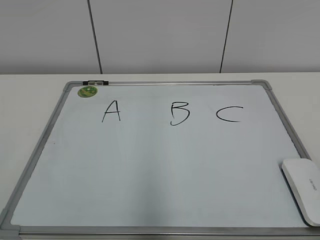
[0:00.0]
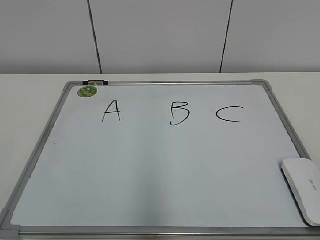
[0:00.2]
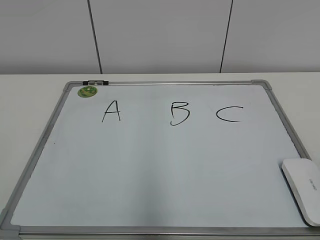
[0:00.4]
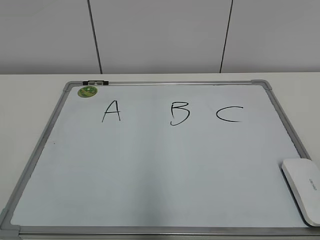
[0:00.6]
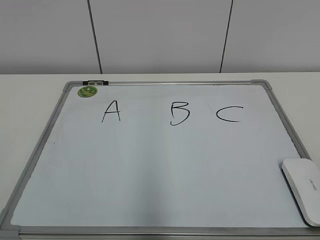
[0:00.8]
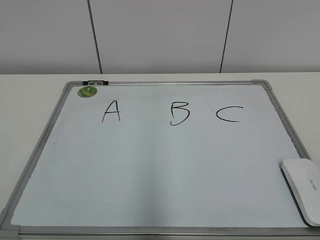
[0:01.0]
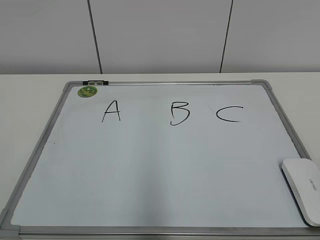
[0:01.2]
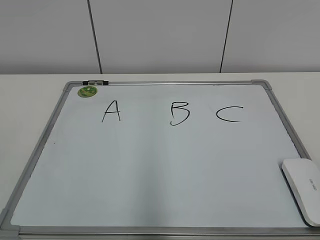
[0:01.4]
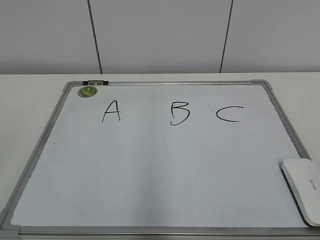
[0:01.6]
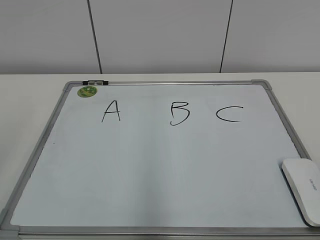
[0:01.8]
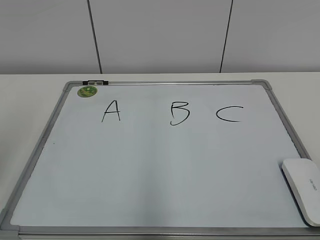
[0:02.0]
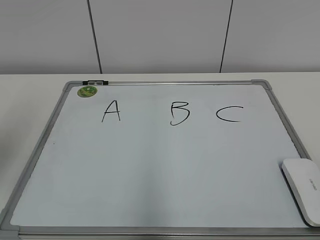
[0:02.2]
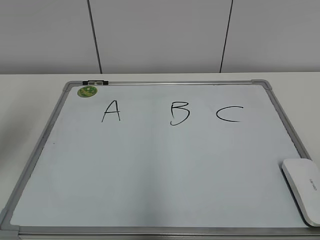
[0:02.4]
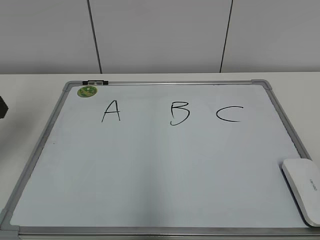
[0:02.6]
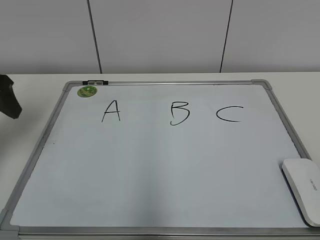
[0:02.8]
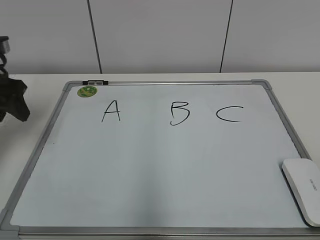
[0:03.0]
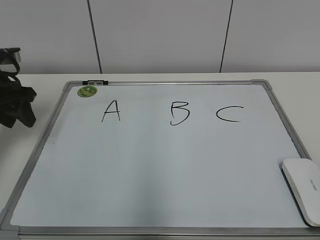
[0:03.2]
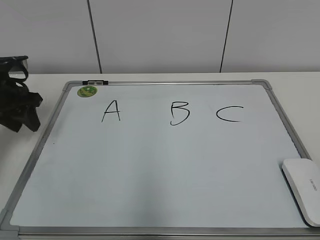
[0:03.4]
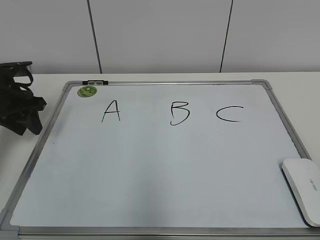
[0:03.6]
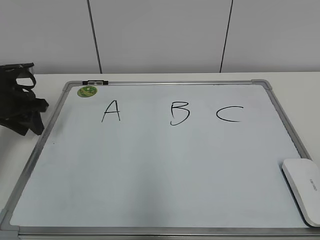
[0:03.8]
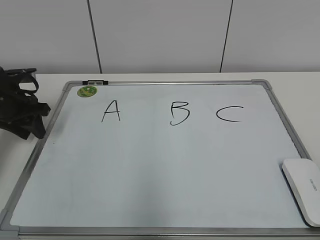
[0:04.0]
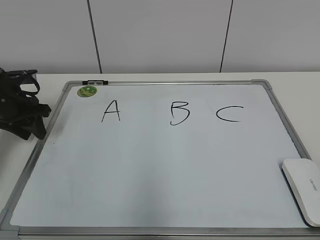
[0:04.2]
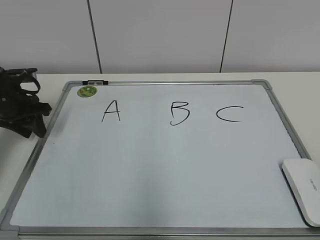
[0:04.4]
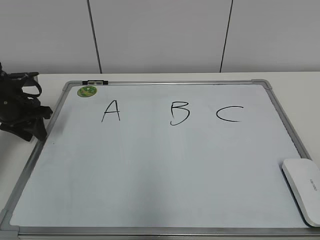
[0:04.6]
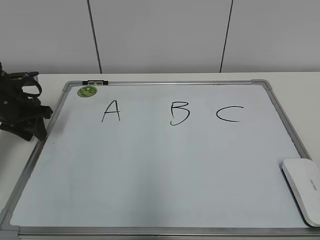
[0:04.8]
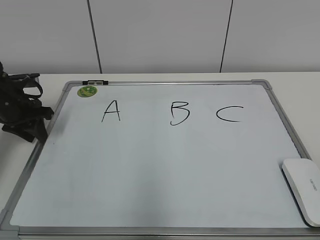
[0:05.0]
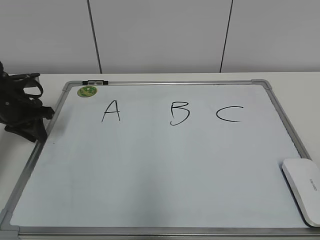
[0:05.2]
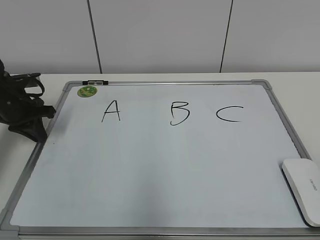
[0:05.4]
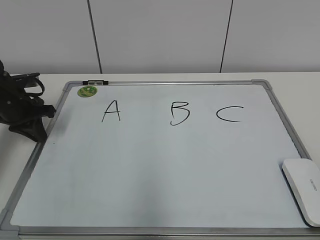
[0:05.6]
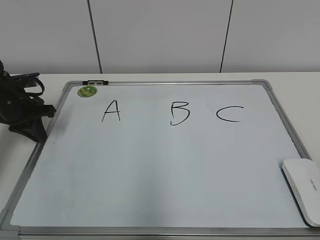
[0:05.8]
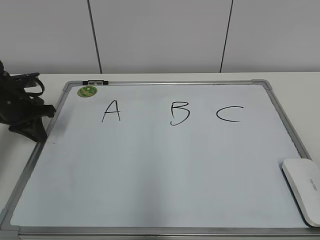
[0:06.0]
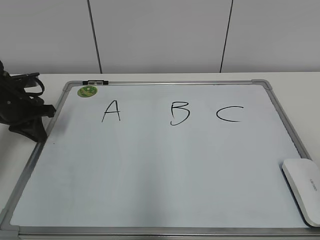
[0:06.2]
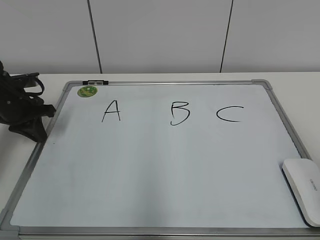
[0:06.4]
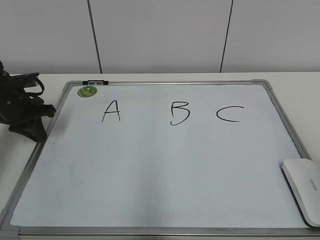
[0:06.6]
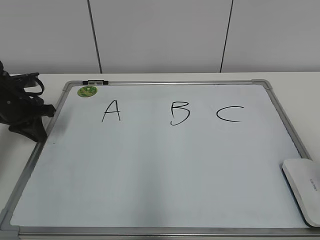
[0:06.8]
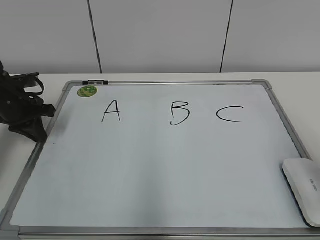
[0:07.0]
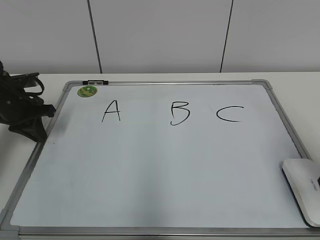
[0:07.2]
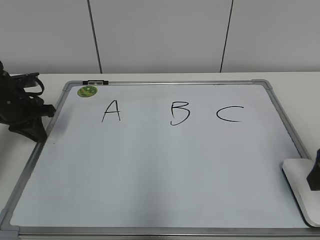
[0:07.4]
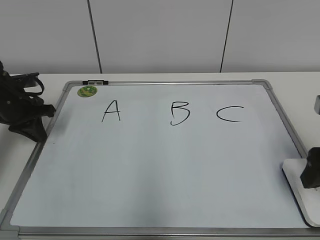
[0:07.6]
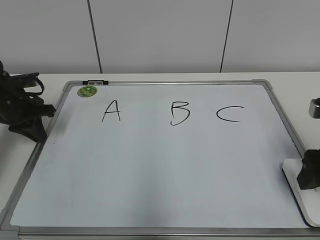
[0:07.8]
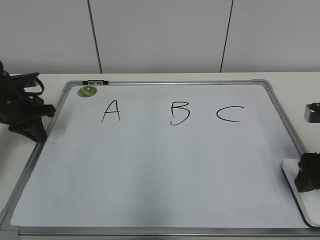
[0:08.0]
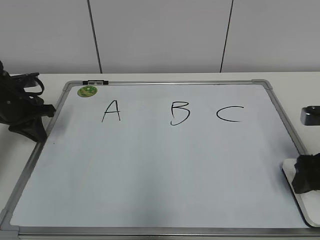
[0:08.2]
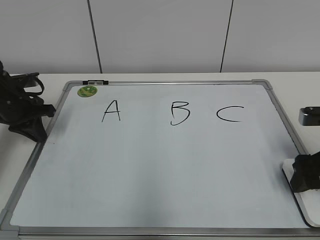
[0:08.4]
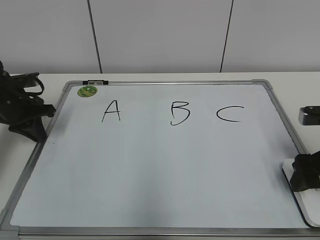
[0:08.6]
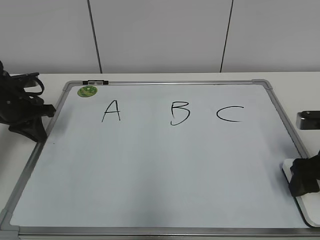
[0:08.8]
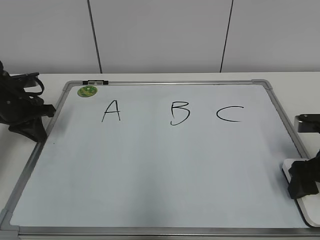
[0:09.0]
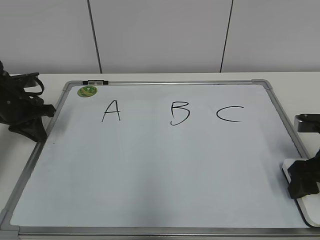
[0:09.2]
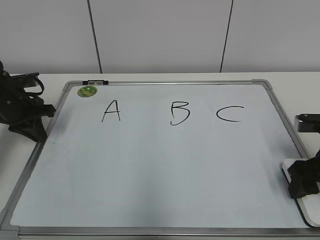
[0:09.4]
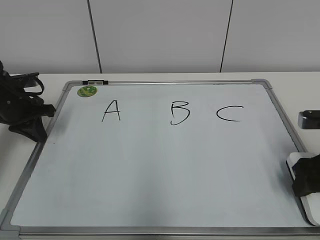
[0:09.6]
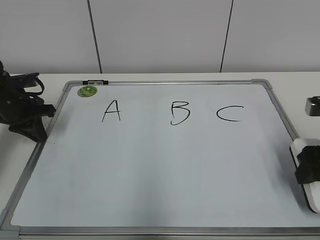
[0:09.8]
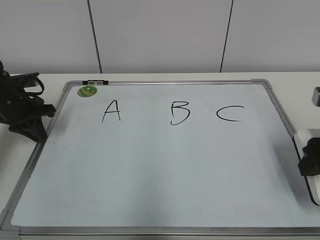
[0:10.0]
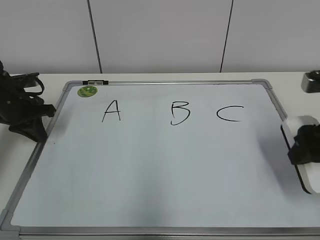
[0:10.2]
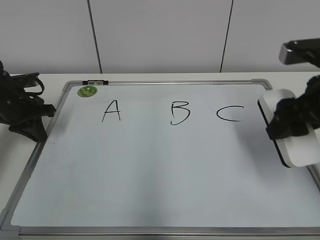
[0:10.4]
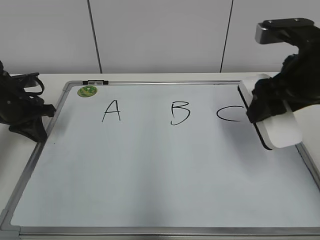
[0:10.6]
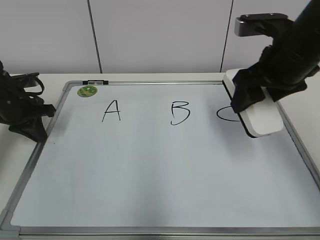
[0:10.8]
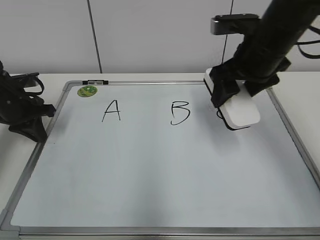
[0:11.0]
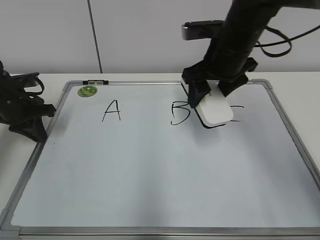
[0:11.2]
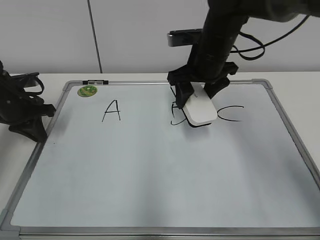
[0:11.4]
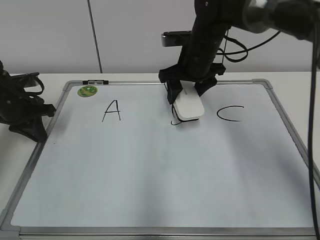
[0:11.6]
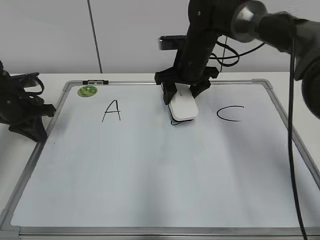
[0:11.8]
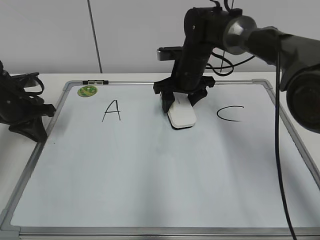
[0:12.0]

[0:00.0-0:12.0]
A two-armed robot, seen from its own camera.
Task of the whole recording: pick up the eraser on the blackboard and erase the letter "B".
Step, 0:00.0 to 0:05.2: Hold the drawing board steady with your left hand.
0:01.6 to 0:03.0: The left gripper heads forward, covering approximately 30 cm.
0:03.0 to 0:04.4: The left gripper travels downward and forward by approximately 10 cm.
0:04.4 to 0:06.0: The left gripper closes.
0:06.0 to 0:07.6: The right gripper moves forward and downward, about 25 cm, and opens its fingers.
0:07.6 to 0:09.0: The right gripper moves downward, roughly 5 cm.
0:09.0 to 0:10.4: The right gripper is displaced upward by about 10 cm, and closes.
0:10.4 to 0:12.0: The right gripper moves forward and to the left, about 25 cm.

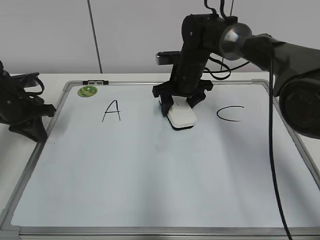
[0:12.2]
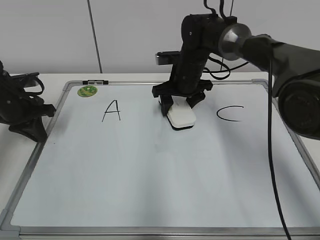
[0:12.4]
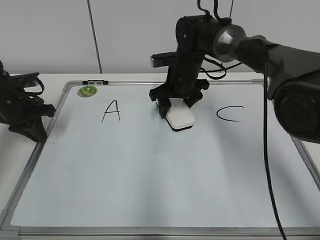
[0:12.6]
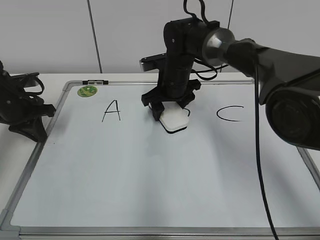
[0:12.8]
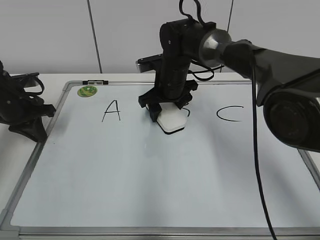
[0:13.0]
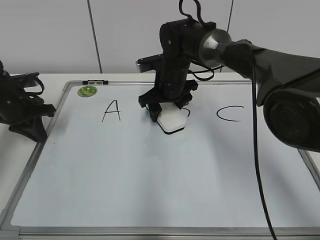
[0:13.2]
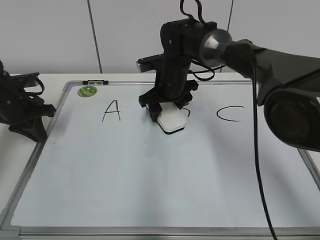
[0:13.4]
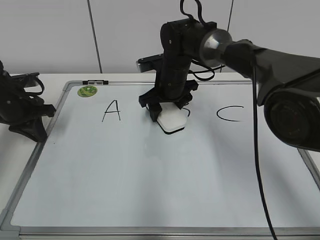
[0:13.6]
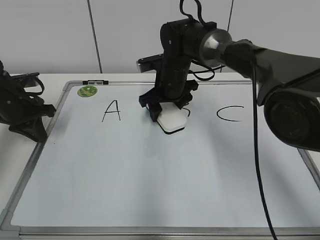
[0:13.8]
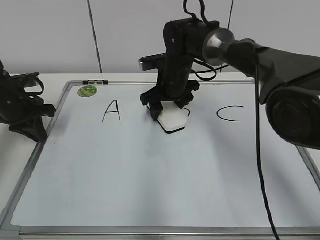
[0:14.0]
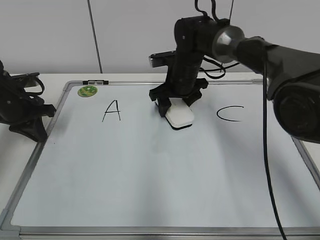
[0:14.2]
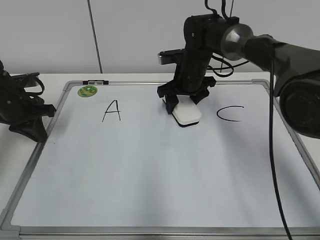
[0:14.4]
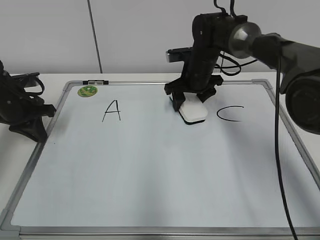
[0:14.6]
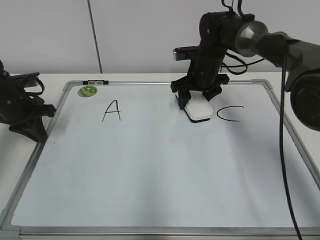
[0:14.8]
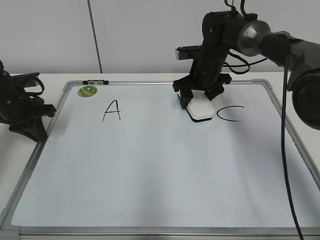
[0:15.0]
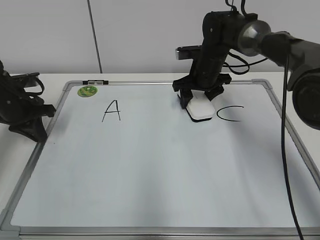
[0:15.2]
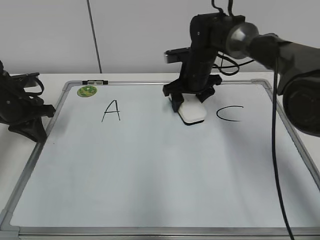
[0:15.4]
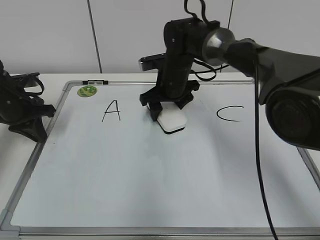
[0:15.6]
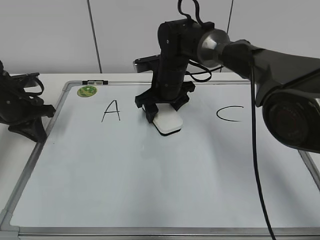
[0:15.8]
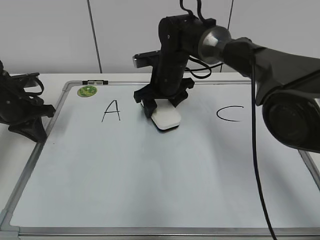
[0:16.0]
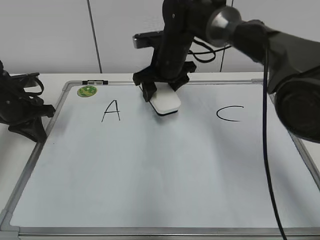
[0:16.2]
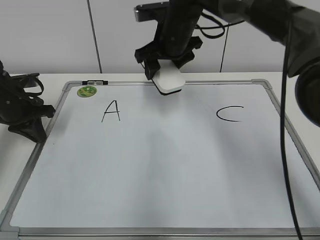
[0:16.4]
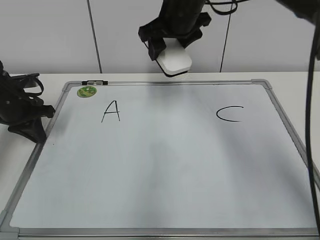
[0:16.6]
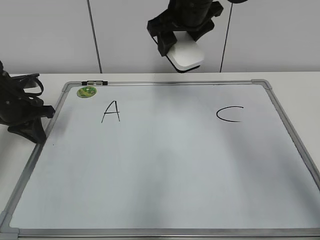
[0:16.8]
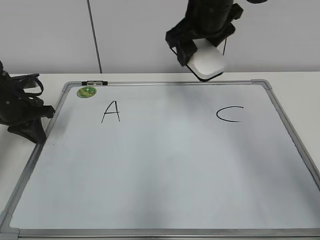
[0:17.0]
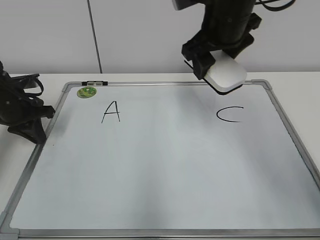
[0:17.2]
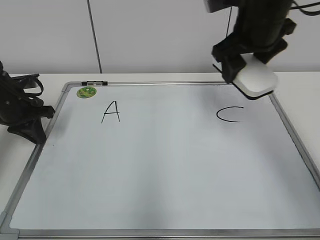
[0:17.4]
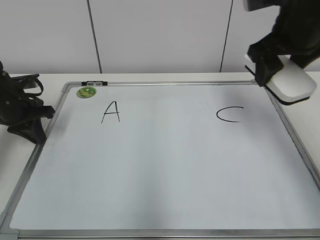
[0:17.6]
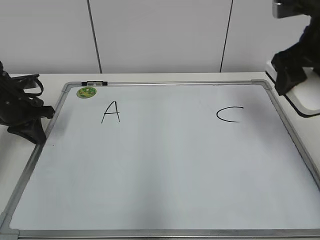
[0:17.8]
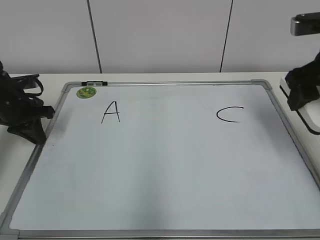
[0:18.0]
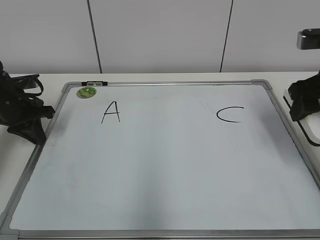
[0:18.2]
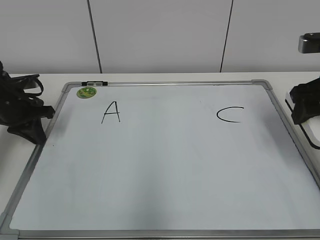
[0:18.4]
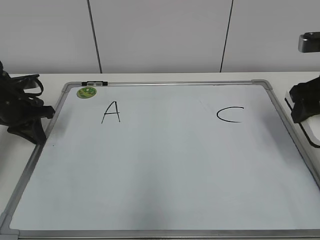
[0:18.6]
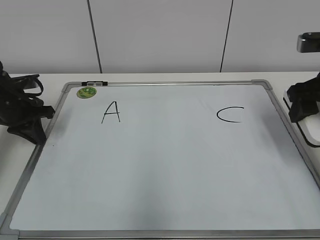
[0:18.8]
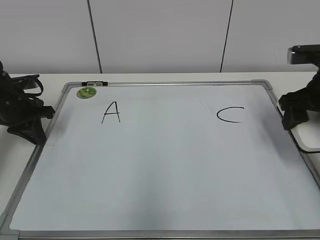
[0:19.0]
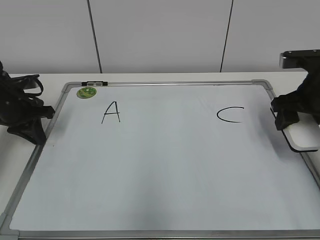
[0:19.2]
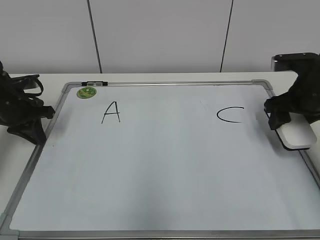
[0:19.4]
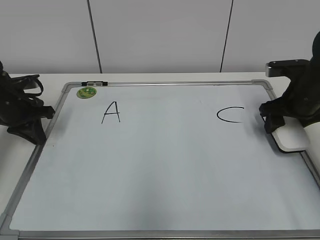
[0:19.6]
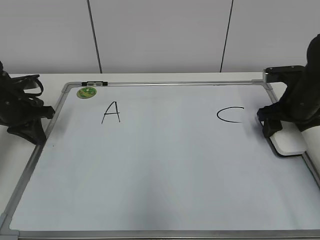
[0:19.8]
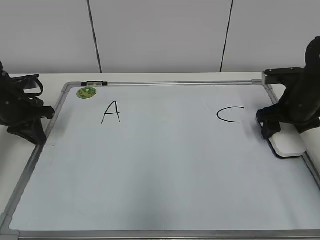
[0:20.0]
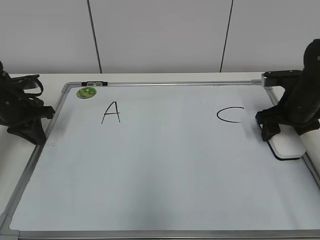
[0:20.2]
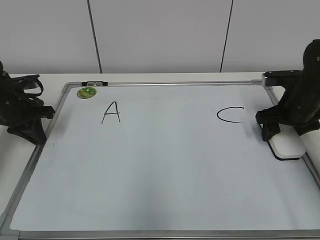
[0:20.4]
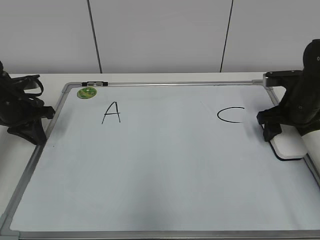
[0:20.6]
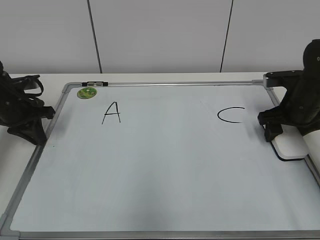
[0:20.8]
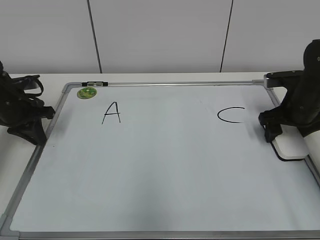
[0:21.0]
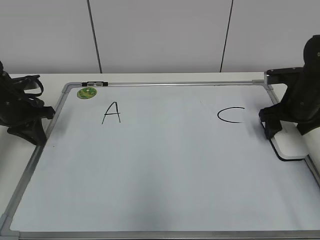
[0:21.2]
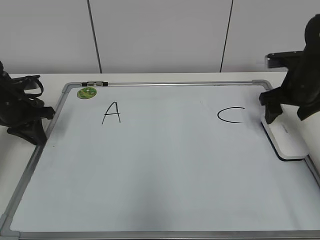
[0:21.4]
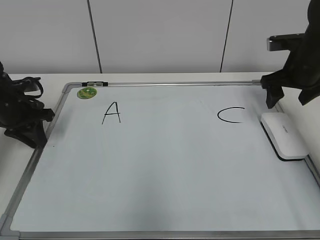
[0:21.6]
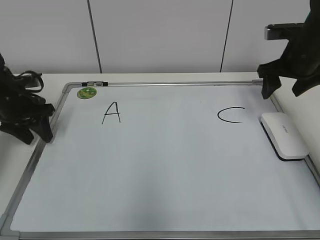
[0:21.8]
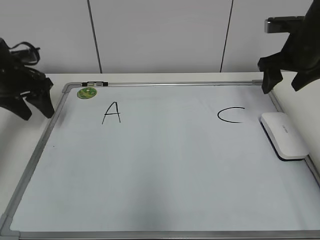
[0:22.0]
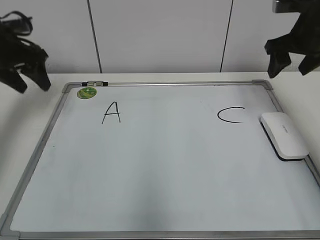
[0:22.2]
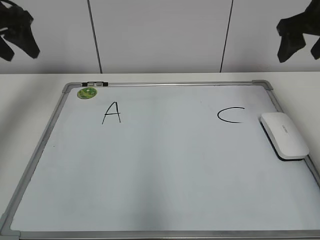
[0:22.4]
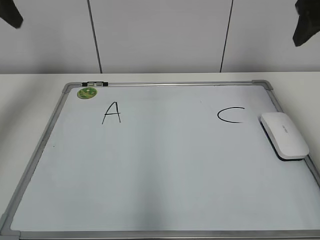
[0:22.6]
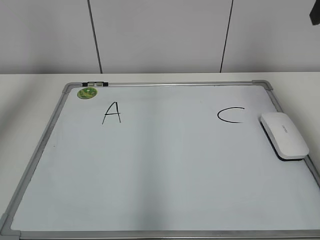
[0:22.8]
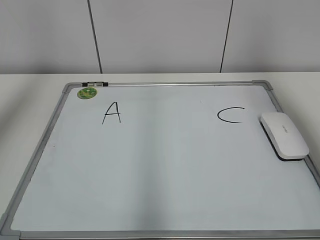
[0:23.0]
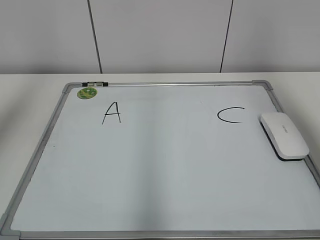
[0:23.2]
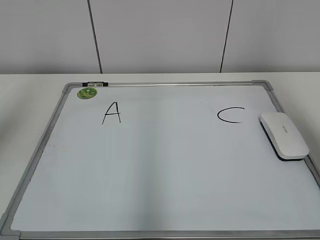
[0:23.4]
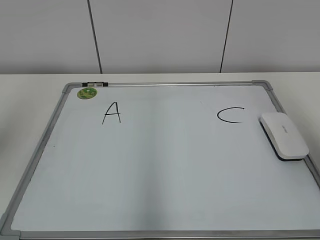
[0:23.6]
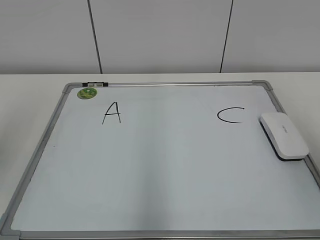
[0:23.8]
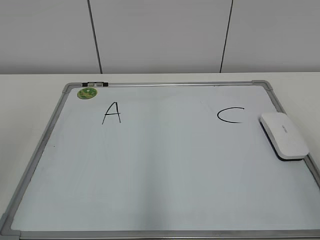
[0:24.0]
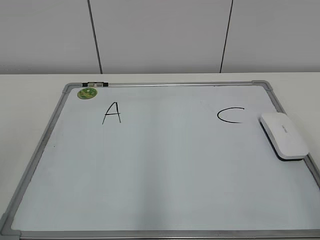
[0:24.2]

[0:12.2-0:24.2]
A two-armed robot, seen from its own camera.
Task of the whole recording: pick up the eraser on the blackboard and erase the letter "B".
Step, 0:12.2 to 0:15.6: Erase the letter B with your right hand.
Step, 0:15.8 to 0:21.2: Put down the eraser with your right hand.
0:12.2 to 0:13.8: The grippers make only small movements.
0:13.8 to 0:15.2: The right gripper is displaced to the right by approximately 10 cm.
0:15.2 to 0:16.6: The right gripper heads upward and to the left, covering some 15 cm.
0:16.6 to 0:18.2: The right gripper shifts about 25 cm to the right and backward.
0:18.2 to 0:19.8: The right gripper moves downward and forward, some 10 cm.
0:19.8 to 0:21.2: The right gripper opens its fingers.
0:21.2 to 0:22.6: The grippers both shift upward by about 20 cm. The right gripper closes; the left gripper opens up.
0:22.6 to 0:24.2: Both grippers travel together backward, approximately 30 cm.
